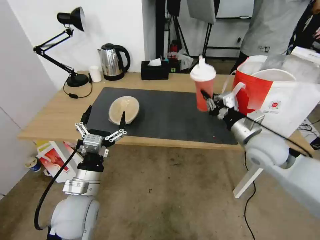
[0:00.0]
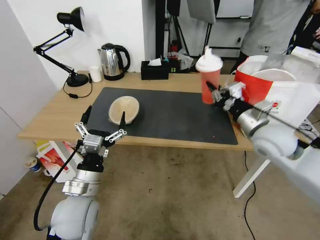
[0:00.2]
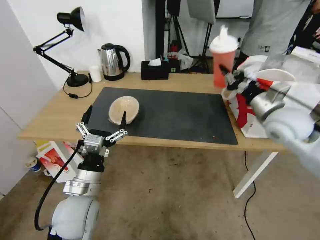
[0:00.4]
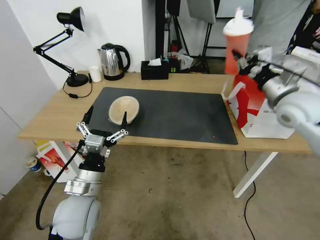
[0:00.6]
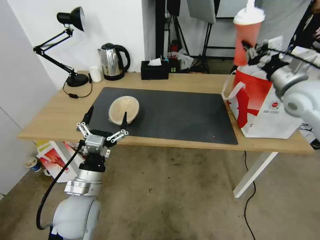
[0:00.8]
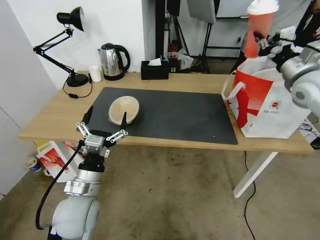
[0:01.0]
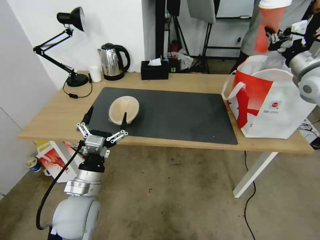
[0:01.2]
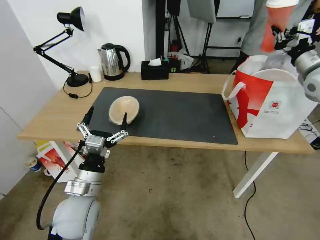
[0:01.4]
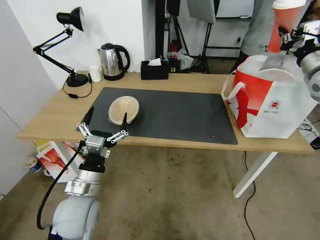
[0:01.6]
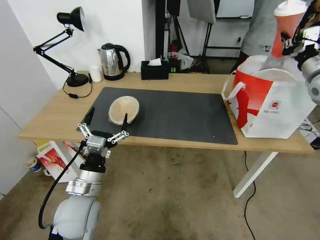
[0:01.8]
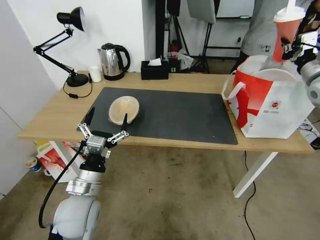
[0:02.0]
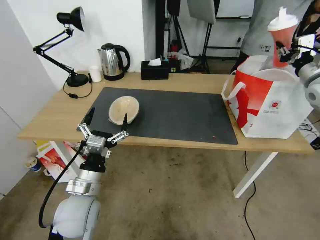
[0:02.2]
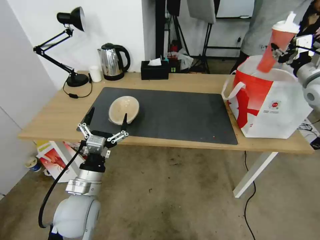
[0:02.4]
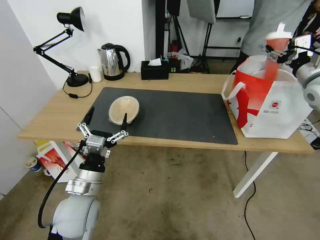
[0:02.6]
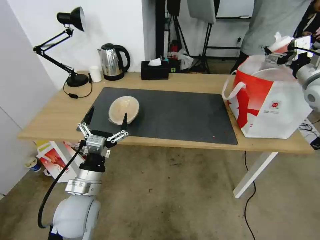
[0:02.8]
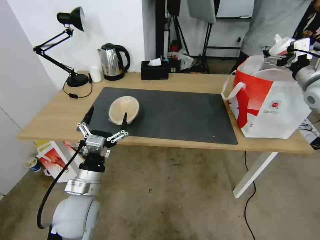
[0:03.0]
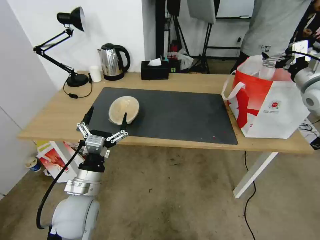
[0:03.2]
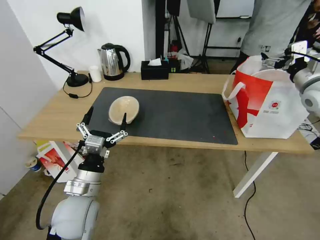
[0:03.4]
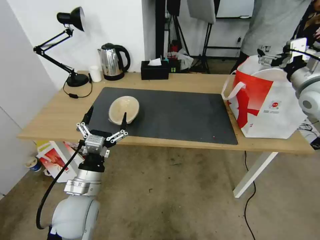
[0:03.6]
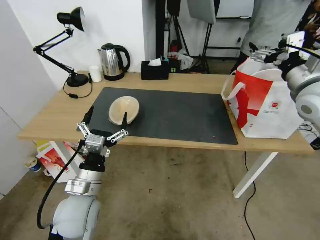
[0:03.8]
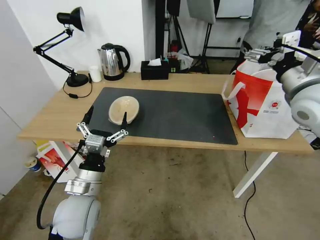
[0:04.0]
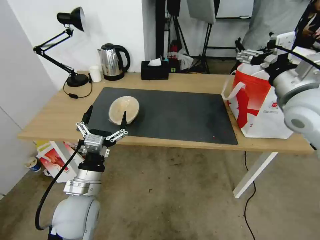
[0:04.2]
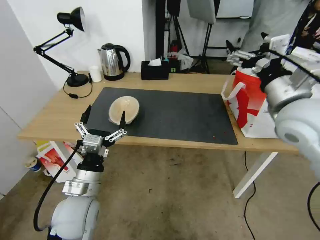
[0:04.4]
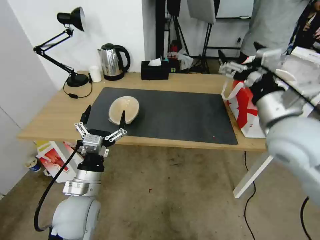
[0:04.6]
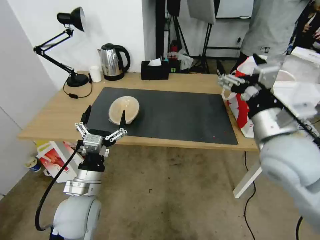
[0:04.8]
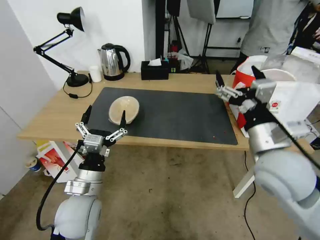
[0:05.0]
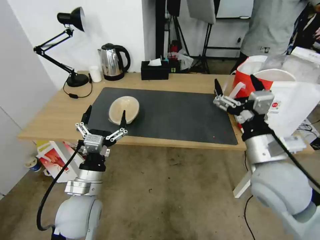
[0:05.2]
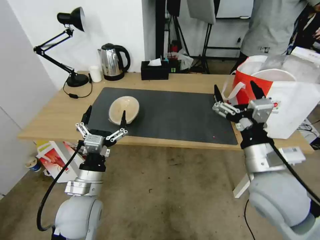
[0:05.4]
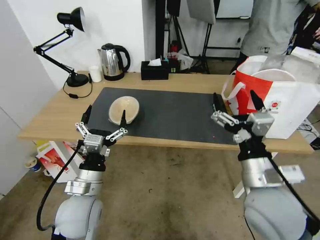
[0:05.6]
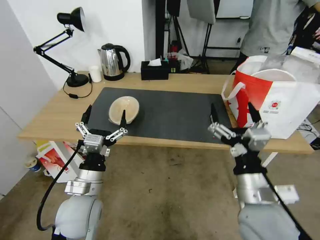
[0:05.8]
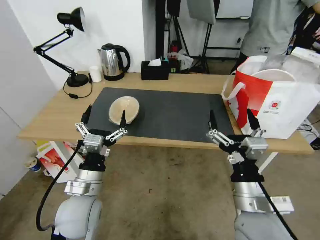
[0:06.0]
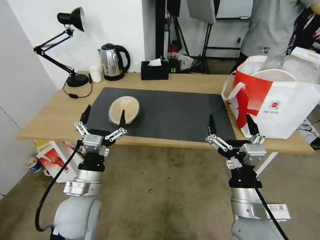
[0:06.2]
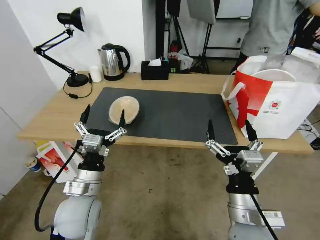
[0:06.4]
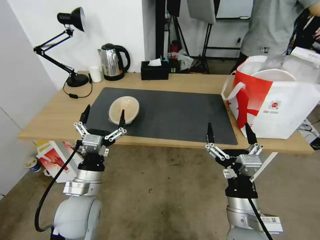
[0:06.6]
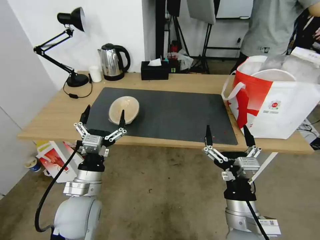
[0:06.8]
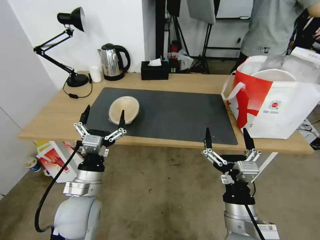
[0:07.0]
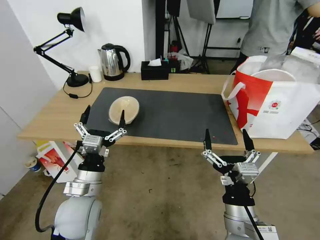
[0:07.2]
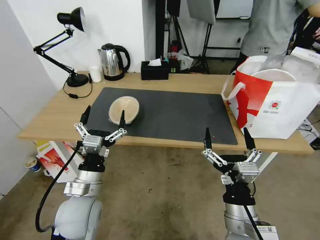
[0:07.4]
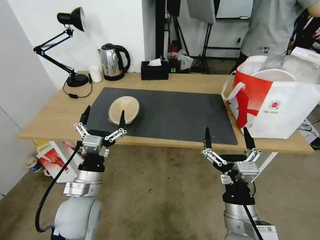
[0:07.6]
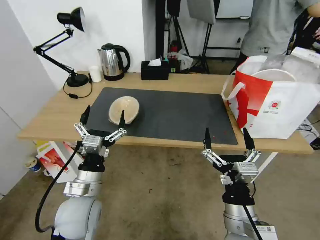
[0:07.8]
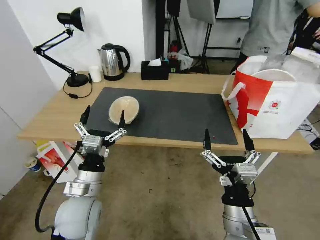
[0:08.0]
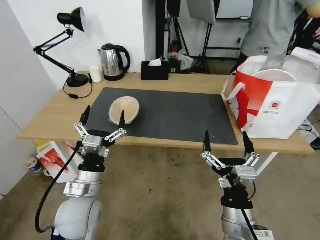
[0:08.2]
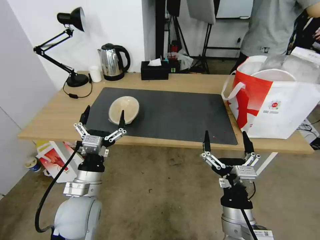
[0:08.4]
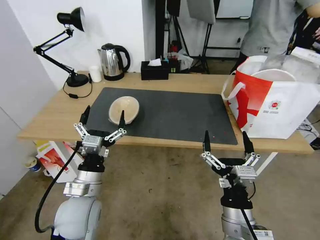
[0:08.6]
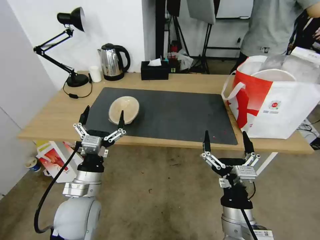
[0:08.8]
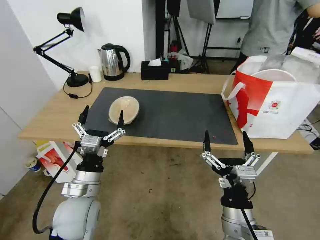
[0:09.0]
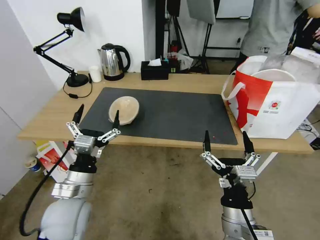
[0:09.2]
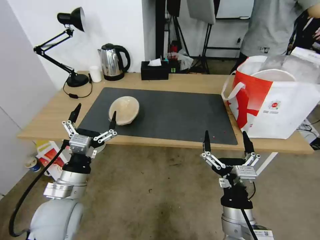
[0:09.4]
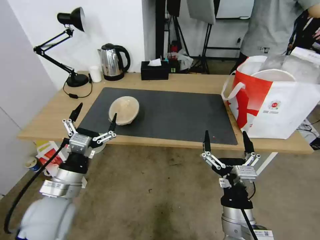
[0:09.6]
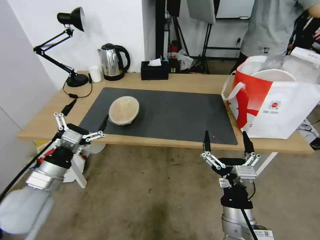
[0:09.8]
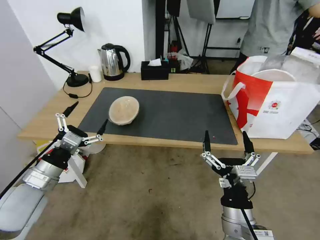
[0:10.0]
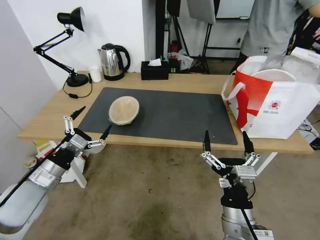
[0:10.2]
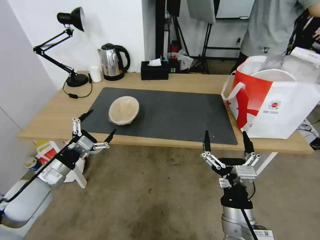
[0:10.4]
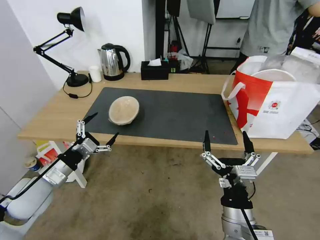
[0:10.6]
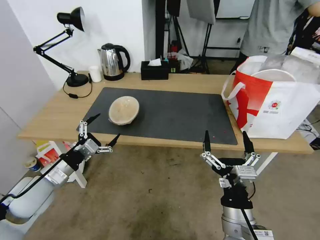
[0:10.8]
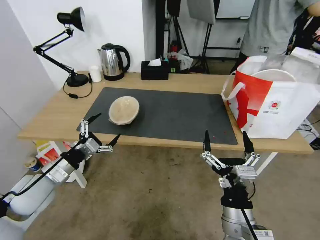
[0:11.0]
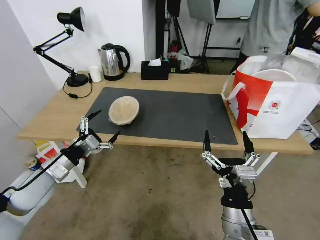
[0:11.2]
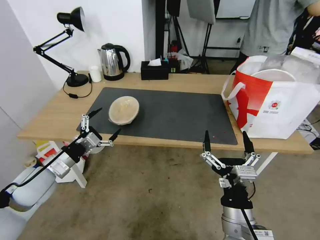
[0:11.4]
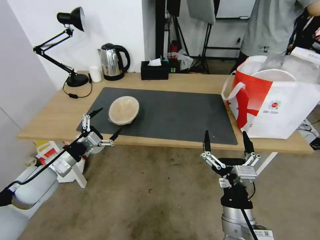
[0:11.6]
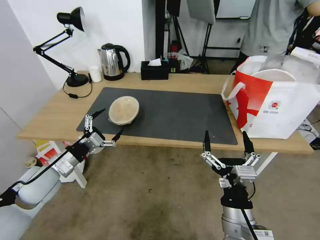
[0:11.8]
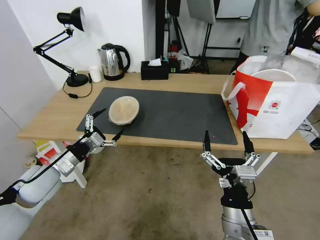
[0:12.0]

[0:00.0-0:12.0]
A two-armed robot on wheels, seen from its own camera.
Task of the whole recording: Pick up the trash from the table and place it into the takeout bag.
0:00.0 to 0:01.6: The right gripper travels to the right, upward and forward by roughly 25 cm.
0:01.6 to 0:03.0: The right gripper opens up.
0:03.0 to 0:04.4: The right gripper heads to the left and backward, covering approximately 20 cm.
0:04.4 to 0:06.0: The right gripper heads downward, backward and to the left, covering about 25 cm.
0:06.0 to 0:07.6: The right gripper moves roughly 5 cm.
0:07.6 to 0:09.0: The two grippers keep their place.
0:09.0 to 0:10.4: The left gripper moves to the left, about 15 cm.
0:10.4 to 0:12.0: The grippers make only small movements.

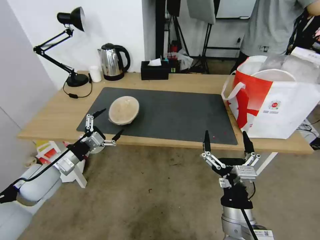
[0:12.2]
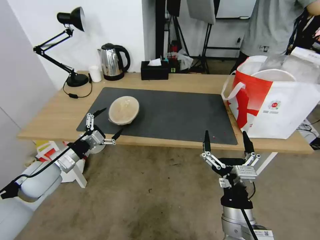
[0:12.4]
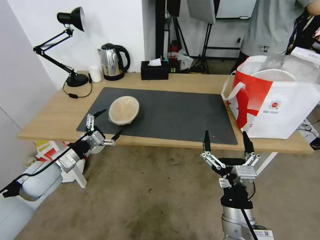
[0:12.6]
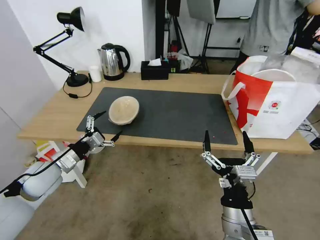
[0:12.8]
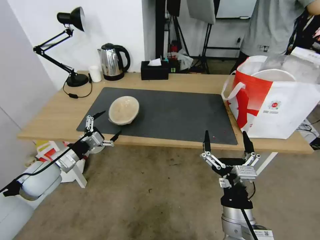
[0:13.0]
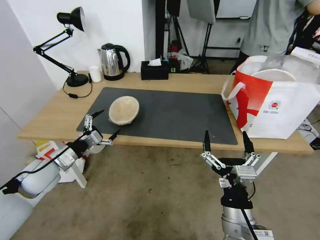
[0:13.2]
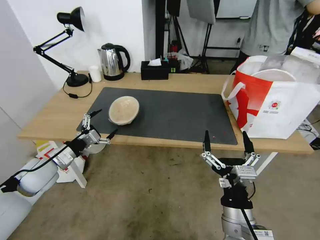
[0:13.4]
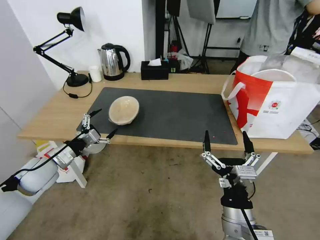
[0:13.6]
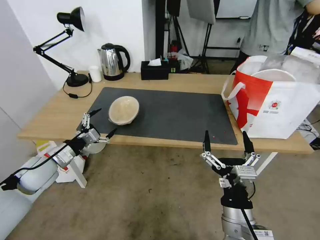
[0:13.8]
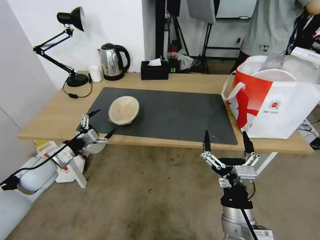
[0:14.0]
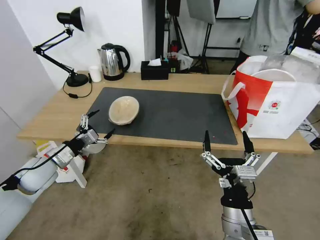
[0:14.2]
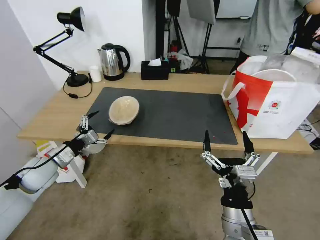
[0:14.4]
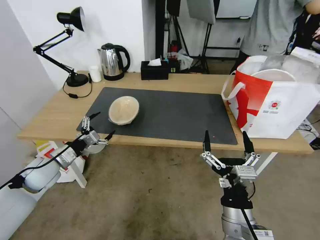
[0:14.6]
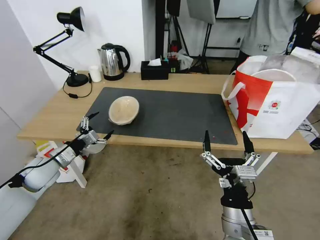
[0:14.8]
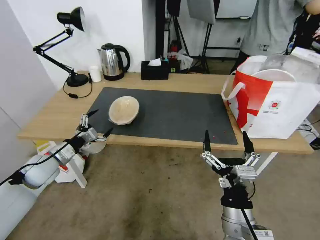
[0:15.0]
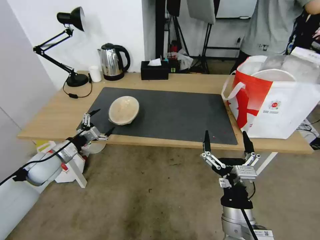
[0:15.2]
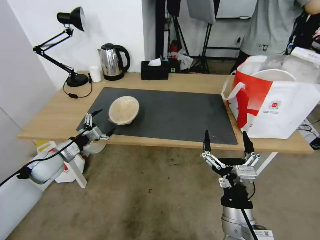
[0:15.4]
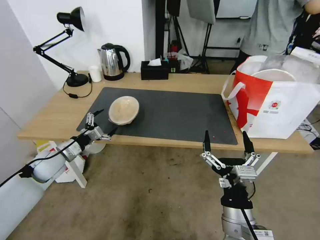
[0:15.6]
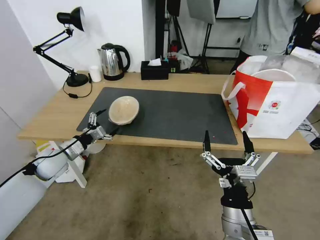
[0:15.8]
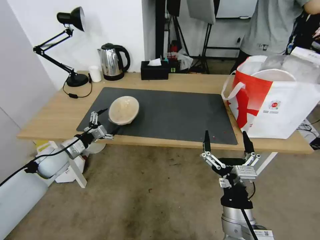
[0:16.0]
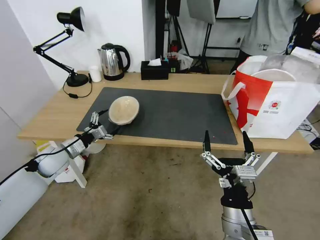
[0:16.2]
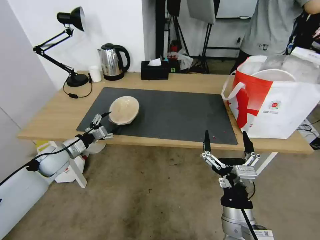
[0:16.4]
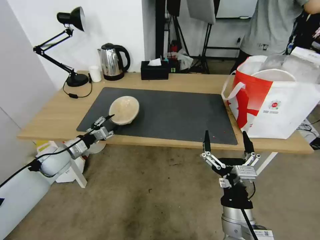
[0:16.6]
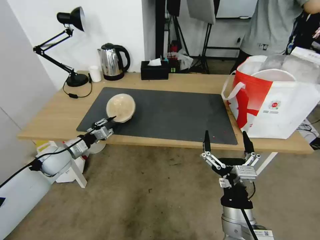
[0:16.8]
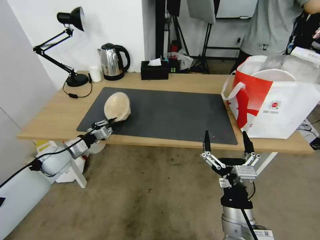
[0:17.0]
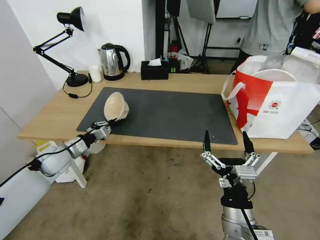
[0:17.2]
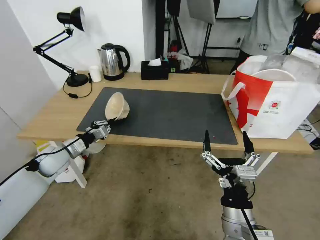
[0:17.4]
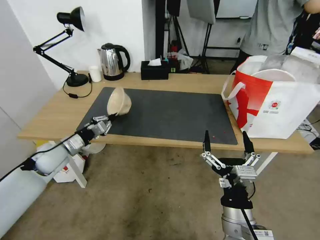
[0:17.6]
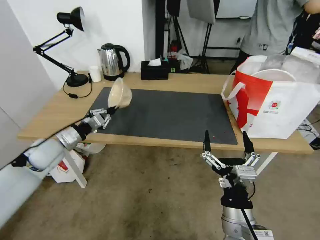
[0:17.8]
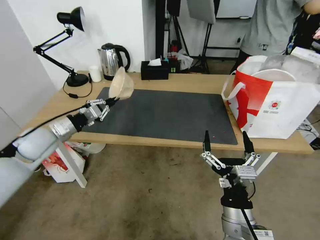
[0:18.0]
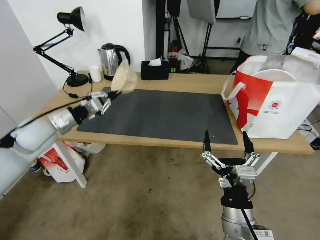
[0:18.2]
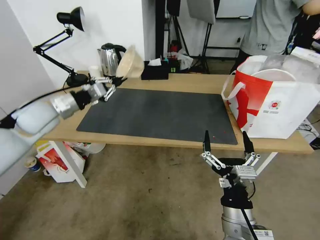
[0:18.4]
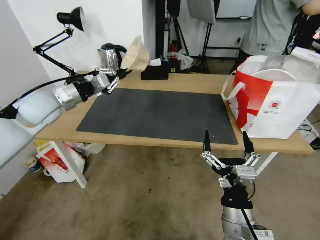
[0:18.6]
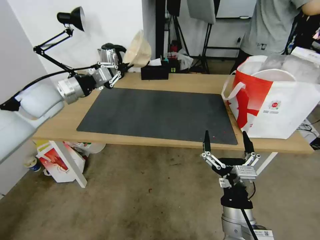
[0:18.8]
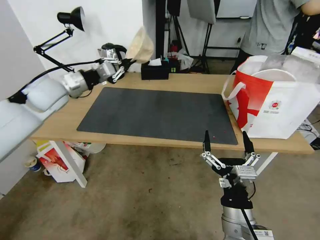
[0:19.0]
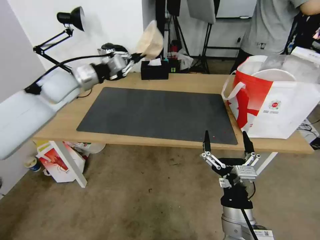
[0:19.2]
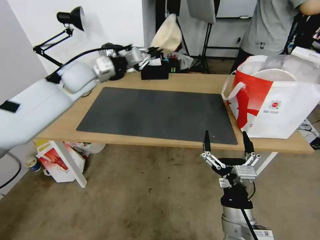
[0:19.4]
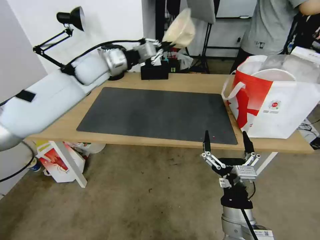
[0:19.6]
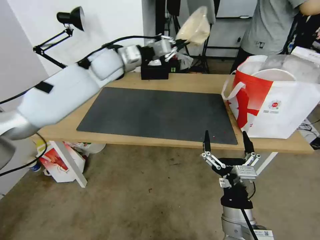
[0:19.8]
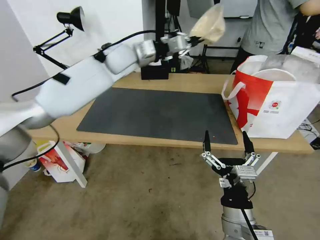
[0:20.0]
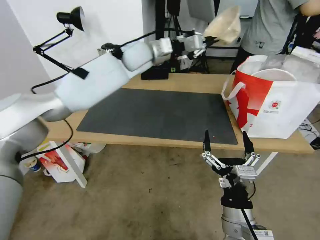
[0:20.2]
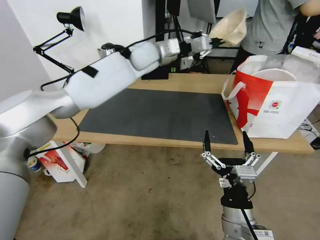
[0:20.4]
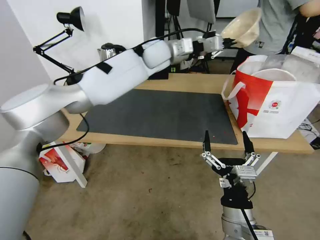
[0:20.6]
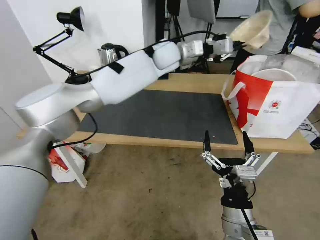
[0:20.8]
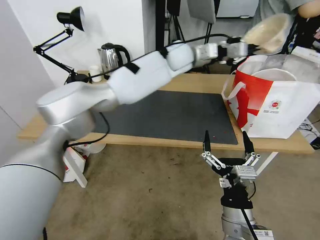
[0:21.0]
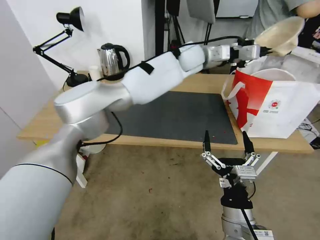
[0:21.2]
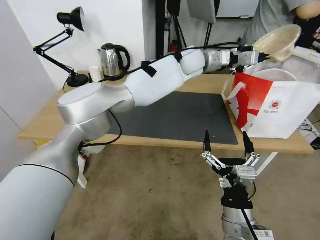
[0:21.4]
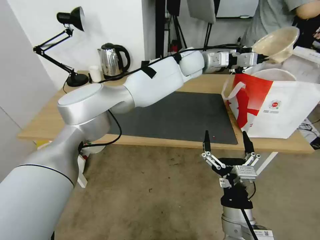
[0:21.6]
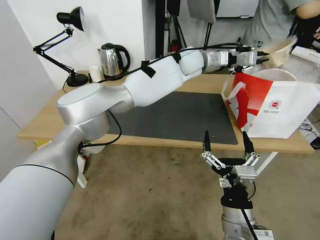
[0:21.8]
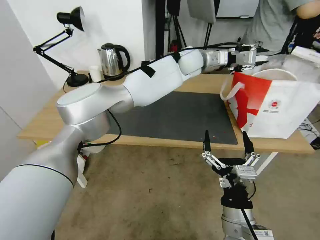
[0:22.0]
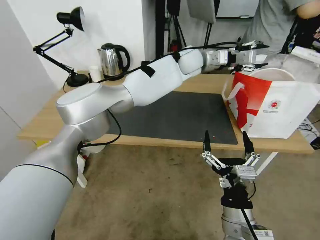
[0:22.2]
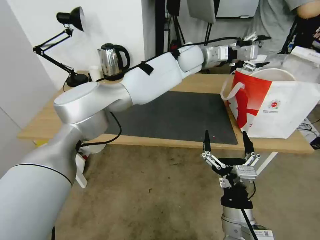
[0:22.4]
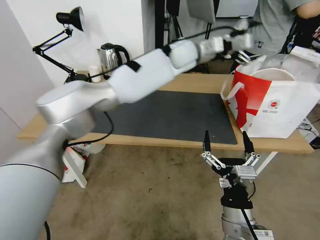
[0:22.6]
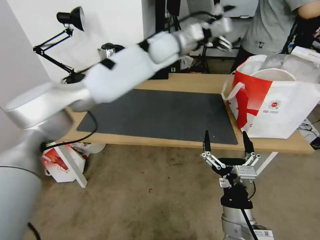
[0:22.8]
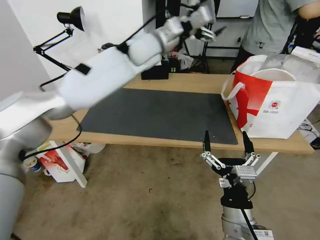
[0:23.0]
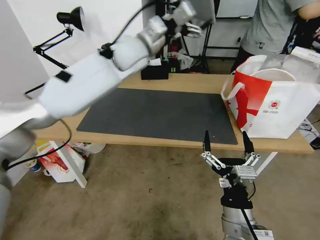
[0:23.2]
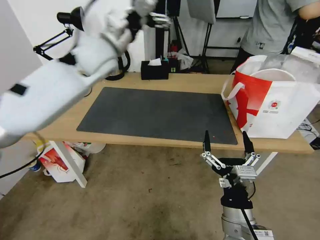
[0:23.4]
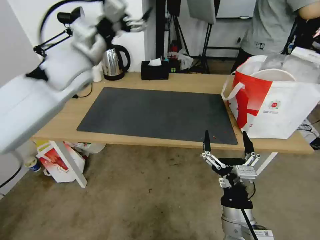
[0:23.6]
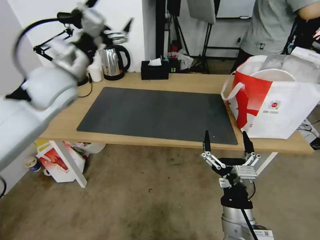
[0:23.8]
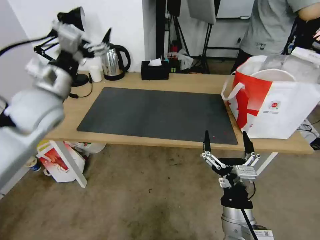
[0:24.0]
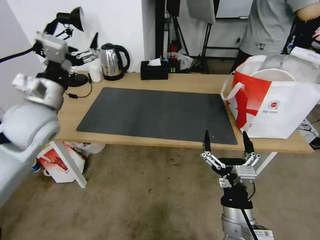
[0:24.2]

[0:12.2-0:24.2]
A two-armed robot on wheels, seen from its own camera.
Task of the whole recording: Pick up the trash from the table and place it into the takeout bag.
0:12.2 to 0:13.8: The grippers make only small movements.
0:13.8 to 0:15.2: The grippers stay close to where they were, moving slightly.
0:15.2 to 0:16.6: The left gripper closes.
0:16.6 to 0:18.2: The left gripper shifts some 15 cm upward, and closes up.
0:18.2 to 0:19.8: The left gripper is displaced to the right, forward and upward by about 30 cm.
0:19.8 to 0:21.2: The left gripper is displaced to the right by about 25 cm.
0:21.2 to 0:22.6: The left gripper opens.
0:22.6 to 0:24.2: The left gripper travels to the left and backward by approximately 40 cm.
